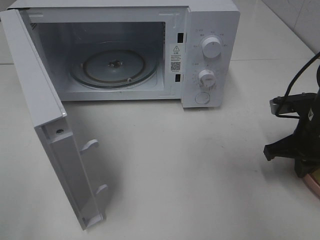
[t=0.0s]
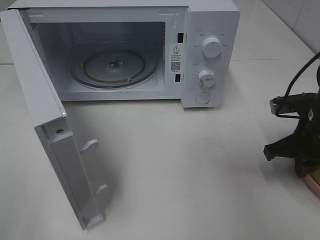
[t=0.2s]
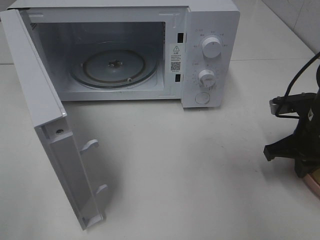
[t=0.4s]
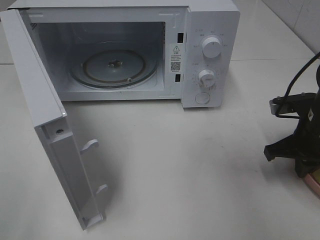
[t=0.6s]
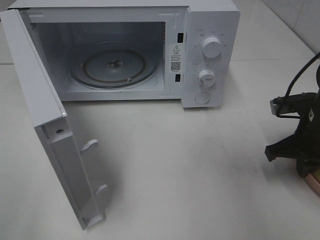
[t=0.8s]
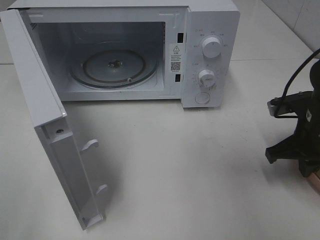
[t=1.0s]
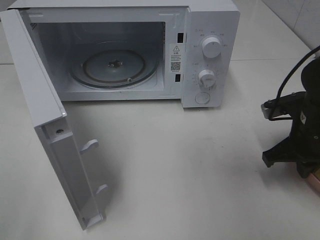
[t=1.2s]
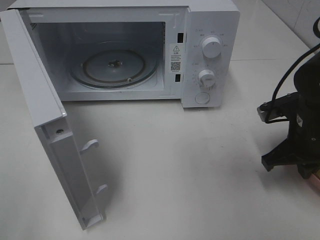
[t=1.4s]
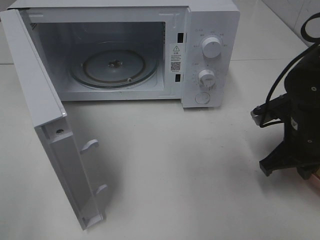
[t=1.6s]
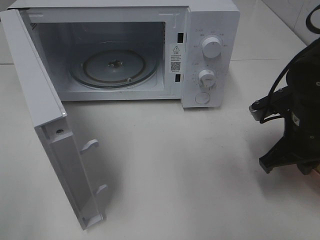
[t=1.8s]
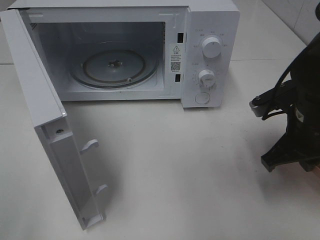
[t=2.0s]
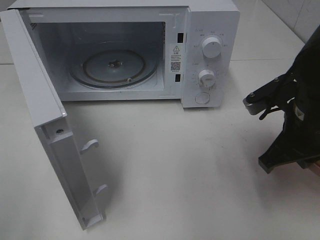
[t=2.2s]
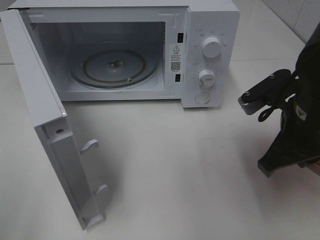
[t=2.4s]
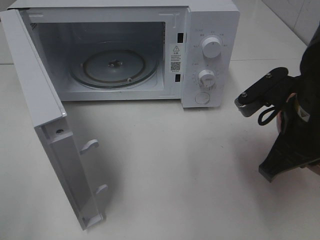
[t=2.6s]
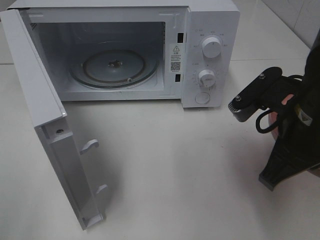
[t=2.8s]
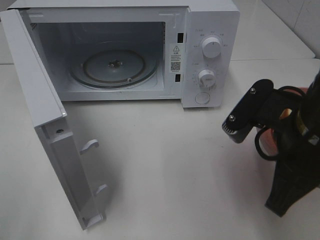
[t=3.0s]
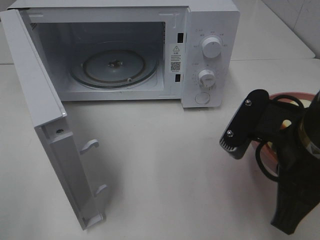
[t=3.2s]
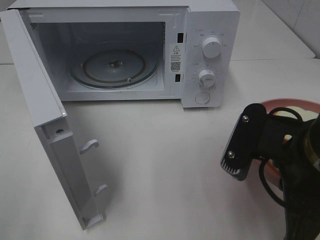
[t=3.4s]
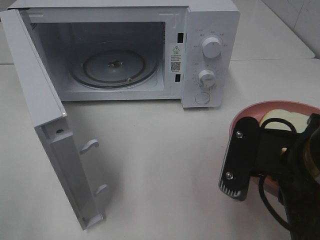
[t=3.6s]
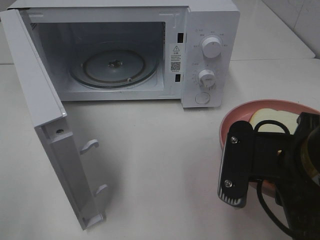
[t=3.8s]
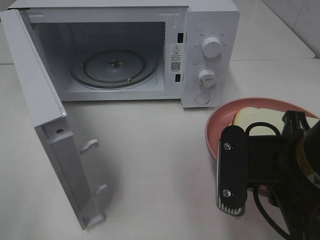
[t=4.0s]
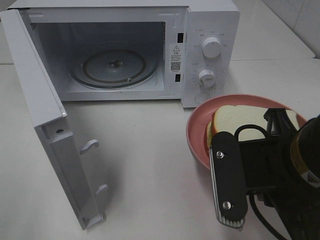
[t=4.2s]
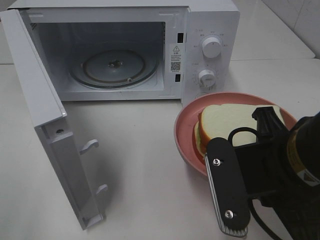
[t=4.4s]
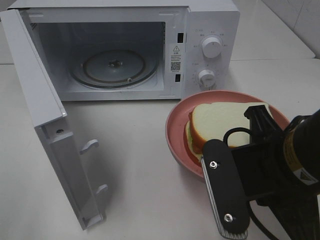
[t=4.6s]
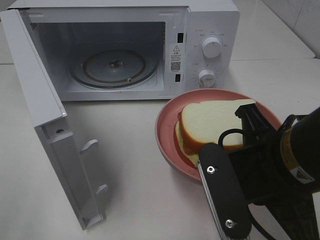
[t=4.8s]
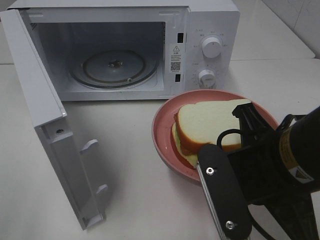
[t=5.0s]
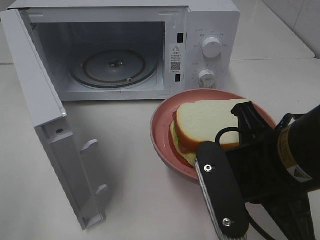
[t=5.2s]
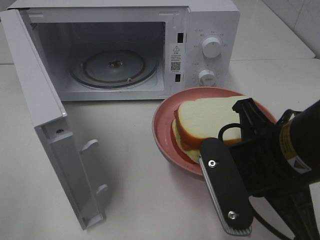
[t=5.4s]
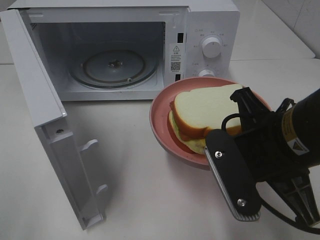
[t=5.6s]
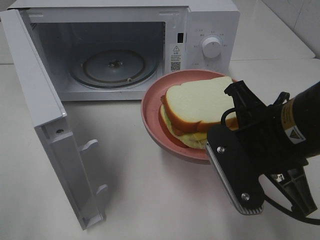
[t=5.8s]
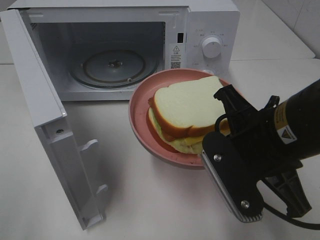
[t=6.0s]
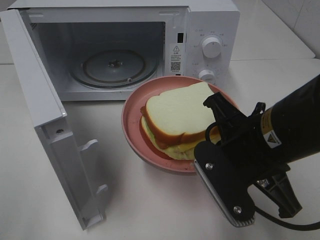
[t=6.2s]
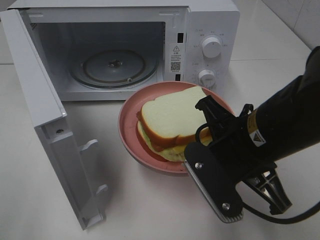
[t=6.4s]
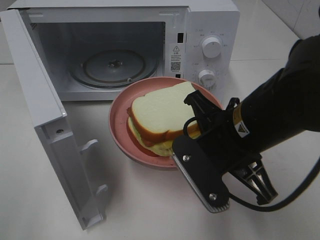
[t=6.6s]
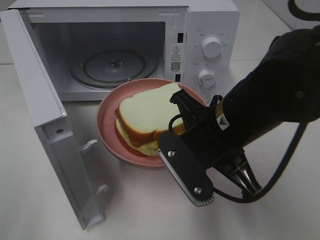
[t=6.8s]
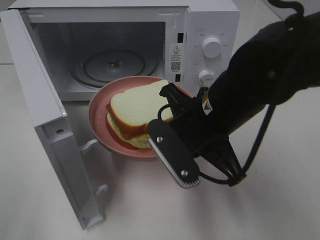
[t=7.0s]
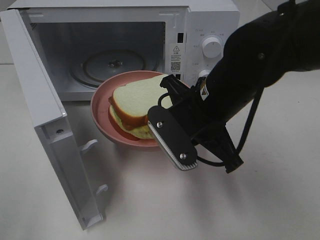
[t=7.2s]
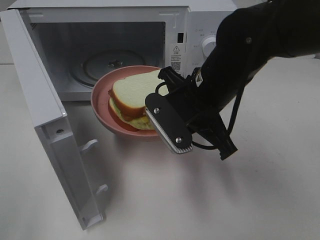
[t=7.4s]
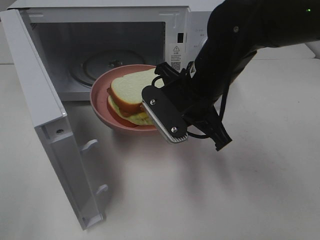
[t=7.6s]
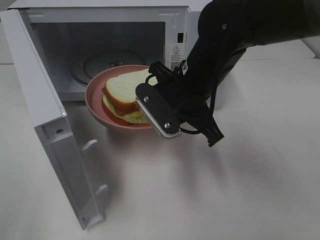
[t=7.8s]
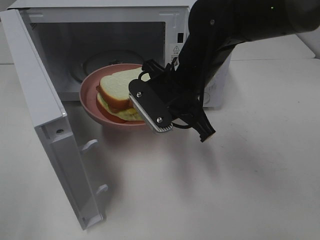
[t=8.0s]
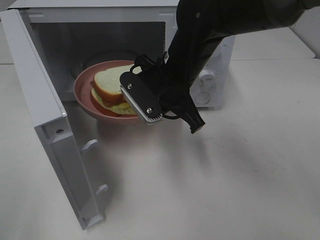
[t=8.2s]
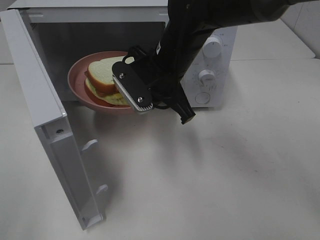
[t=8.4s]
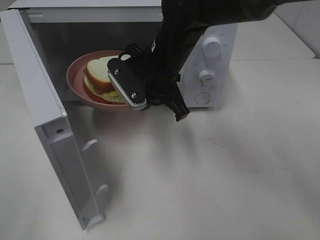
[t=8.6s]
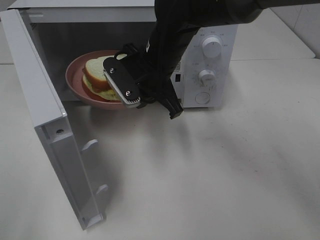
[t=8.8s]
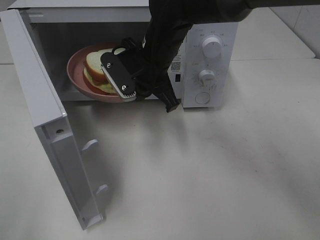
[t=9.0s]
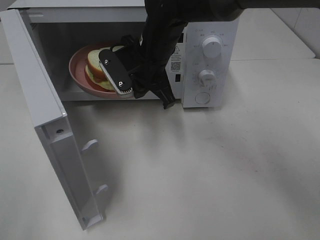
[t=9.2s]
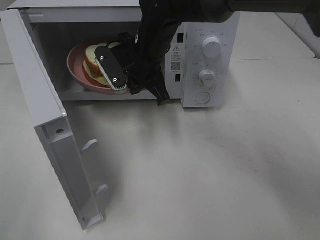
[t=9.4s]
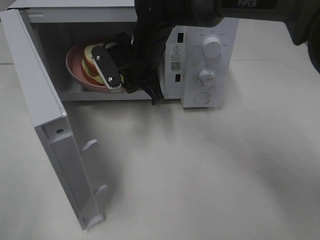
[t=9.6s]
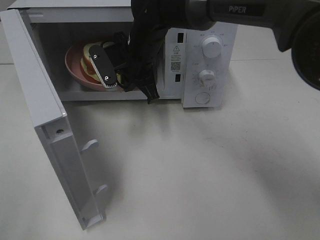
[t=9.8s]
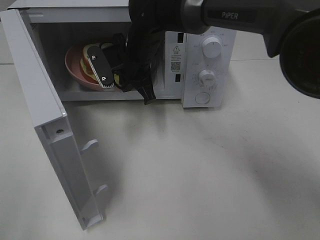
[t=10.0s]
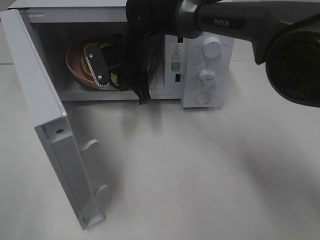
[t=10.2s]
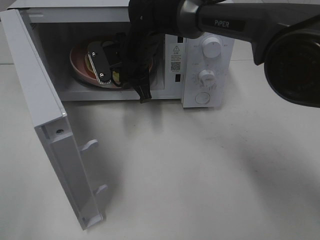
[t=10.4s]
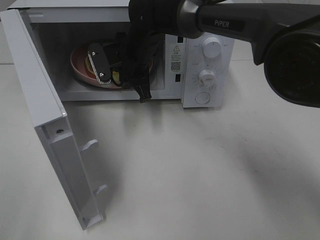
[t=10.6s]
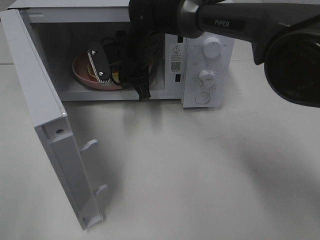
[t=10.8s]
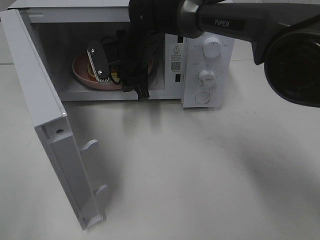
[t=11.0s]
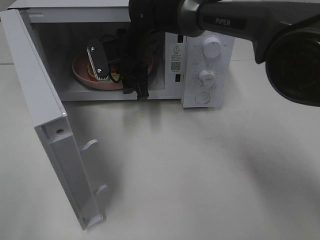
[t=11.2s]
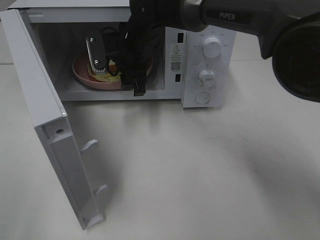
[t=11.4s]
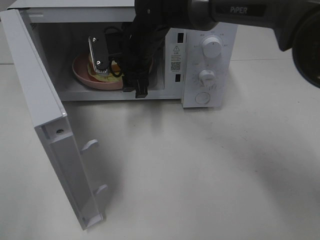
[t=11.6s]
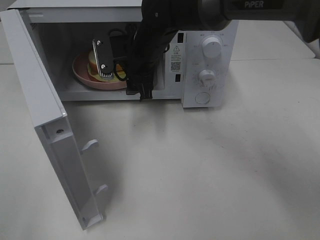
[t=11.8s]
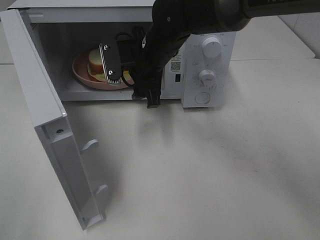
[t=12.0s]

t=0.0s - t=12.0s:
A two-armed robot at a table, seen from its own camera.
Task of the whole recording: Heat Sandwich.
Step, t=0.6s - t=11.0s: Right hand: place the plate in the microwave.
t=0.0s - t=1.6s: The grippers move only a little.
t=1.6s - t=3.0s: The right gripper is displaced backward, upward and to the left by roughly 15 cm.
t=6.0s - t=7.6s: The right gripper shifts about 15 cm forward and to the left.
t=7.6s - t=9.0s: The right gripper is displaced forward and to the left by roughly 10 cm.
t=9.0s - t=10.4s: The right gripper is displaced forward by some 5 cm.
t=10.4s - t=12.0s: The right gripper moves some 5 cm, and opens up.

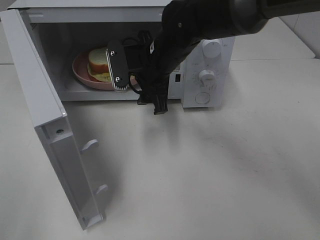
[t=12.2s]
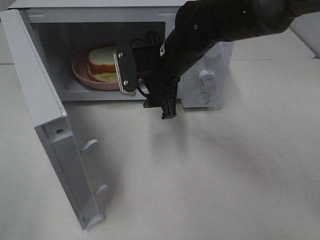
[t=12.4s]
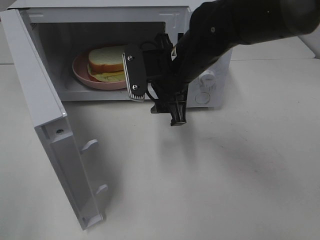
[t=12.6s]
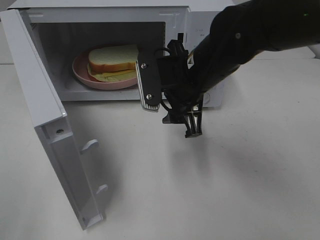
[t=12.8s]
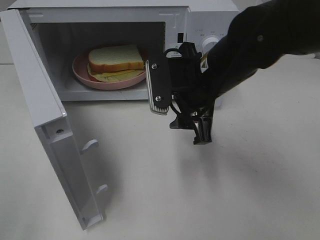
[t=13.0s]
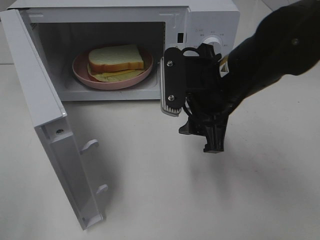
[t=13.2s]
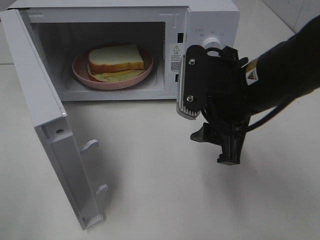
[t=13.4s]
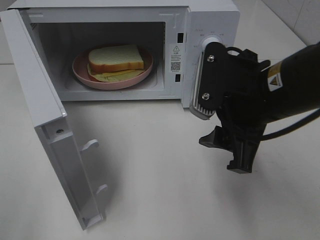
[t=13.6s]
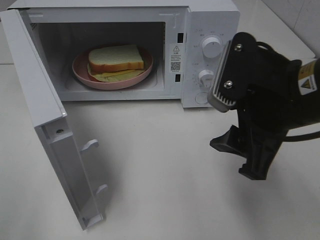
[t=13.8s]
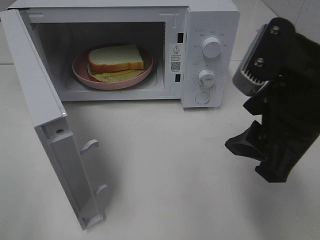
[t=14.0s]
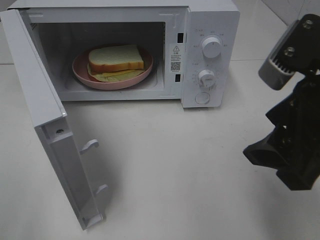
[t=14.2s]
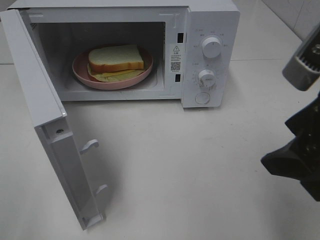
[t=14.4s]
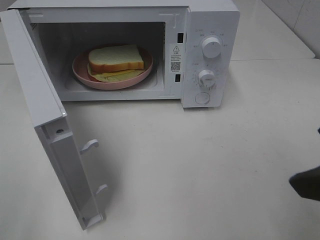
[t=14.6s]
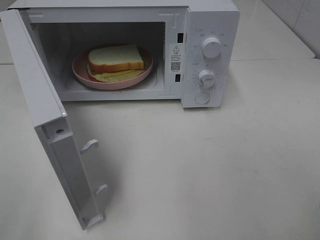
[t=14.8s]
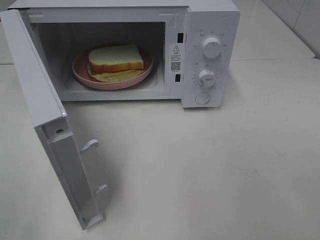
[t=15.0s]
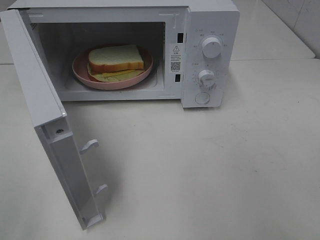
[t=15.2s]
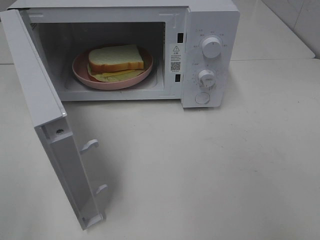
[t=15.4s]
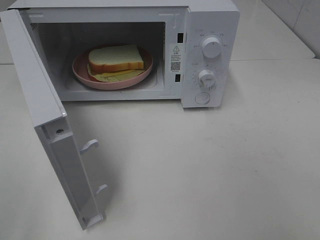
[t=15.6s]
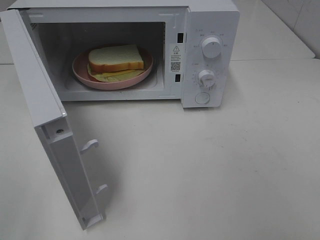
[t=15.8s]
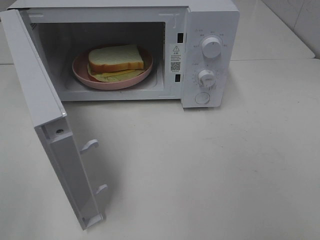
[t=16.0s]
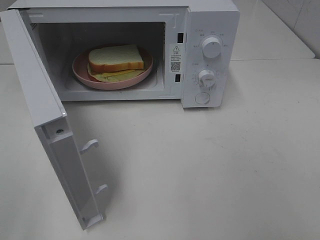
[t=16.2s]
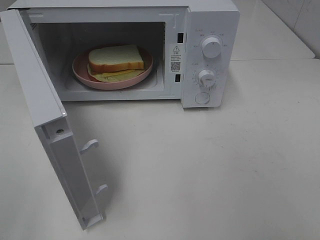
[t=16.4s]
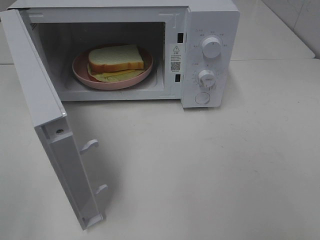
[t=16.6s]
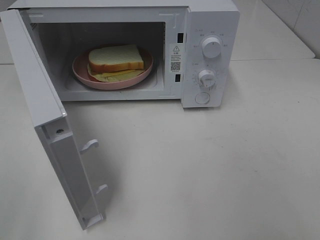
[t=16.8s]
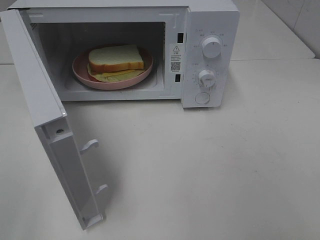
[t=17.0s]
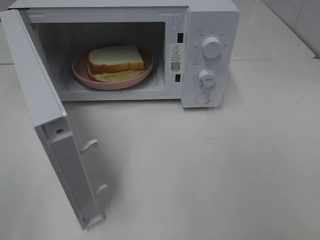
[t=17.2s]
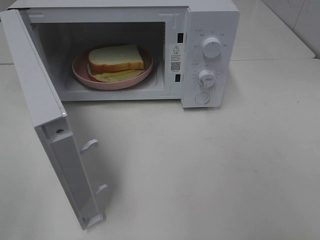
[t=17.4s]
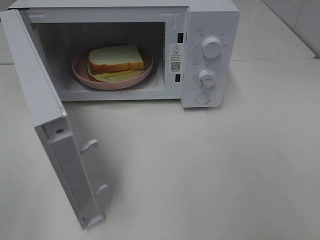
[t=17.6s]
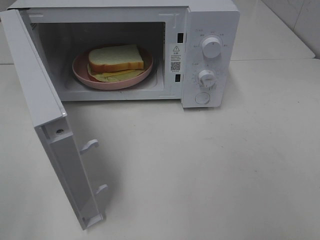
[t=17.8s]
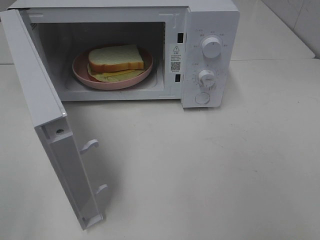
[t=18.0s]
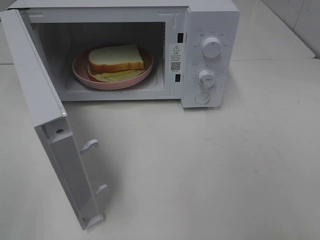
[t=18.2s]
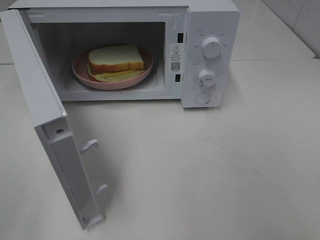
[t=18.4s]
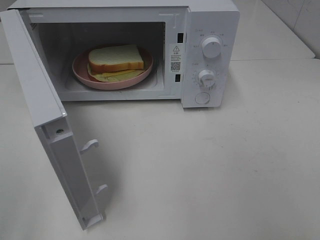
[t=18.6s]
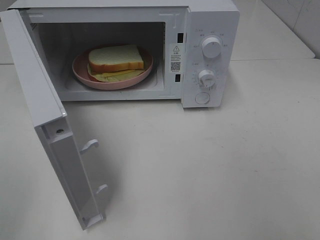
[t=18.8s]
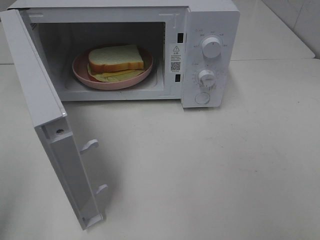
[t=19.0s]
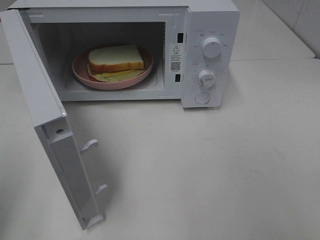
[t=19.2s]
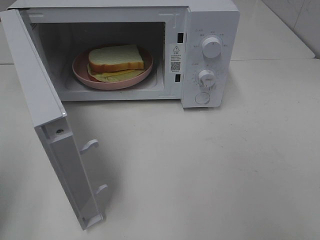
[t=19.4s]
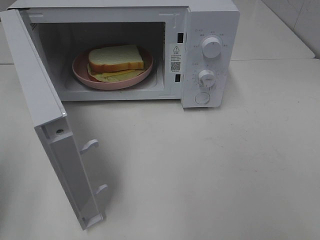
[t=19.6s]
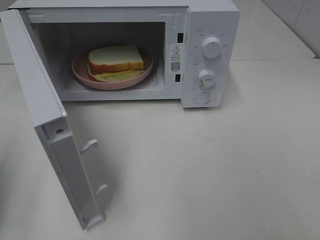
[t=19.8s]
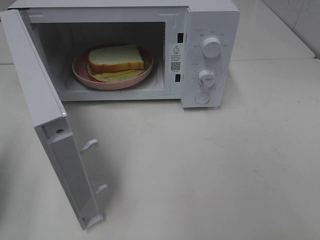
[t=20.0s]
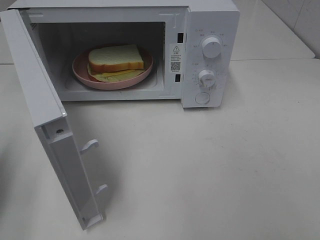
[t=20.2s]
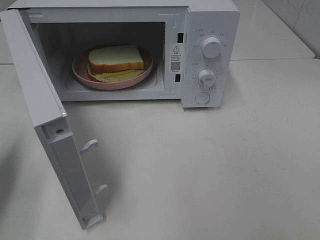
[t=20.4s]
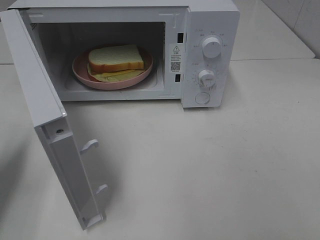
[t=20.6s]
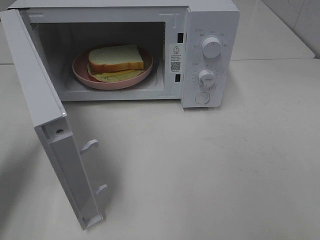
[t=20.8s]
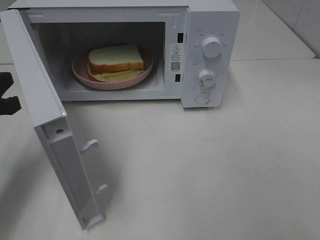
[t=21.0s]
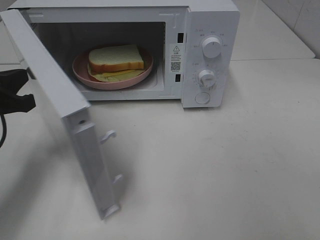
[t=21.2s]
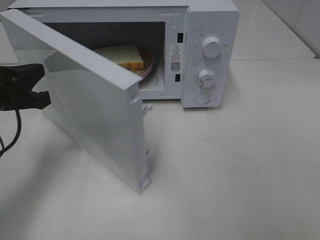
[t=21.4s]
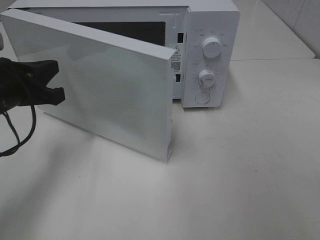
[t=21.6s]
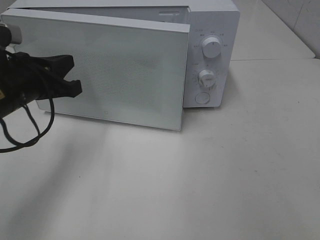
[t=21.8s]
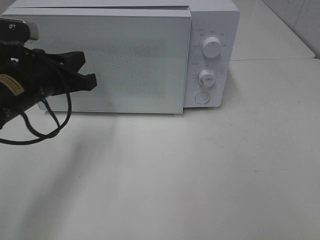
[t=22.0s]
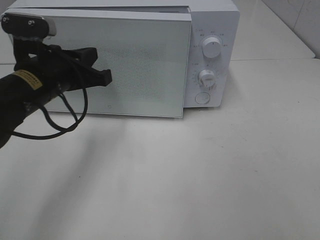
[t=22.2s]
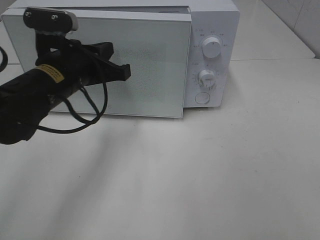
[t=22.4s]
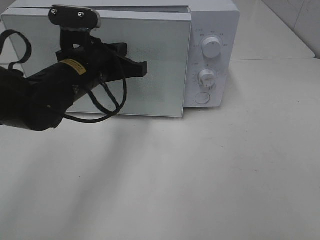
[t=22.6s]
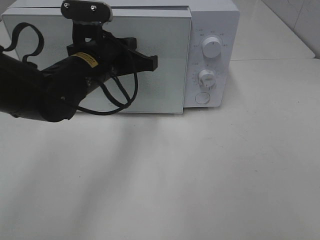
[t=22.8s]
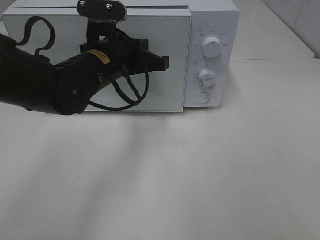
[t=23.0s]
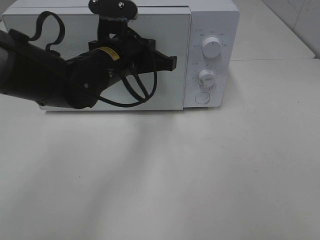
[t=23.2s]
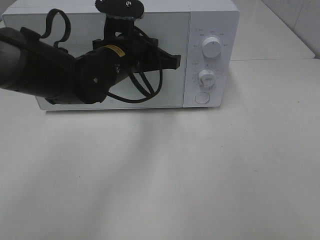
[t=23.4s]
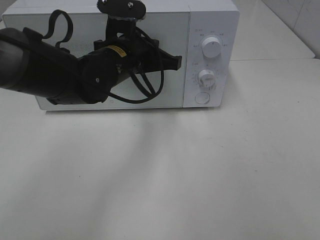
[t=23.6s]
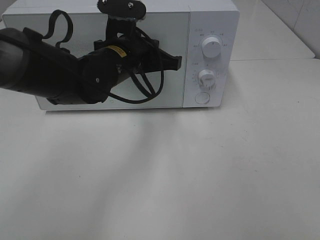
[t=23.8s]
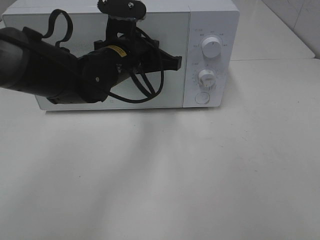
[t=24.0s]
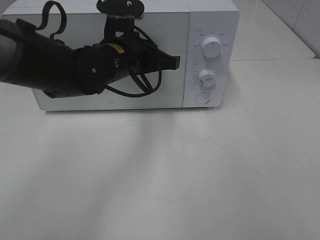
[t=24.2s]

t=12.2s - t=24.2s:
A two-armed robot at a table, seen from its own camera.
Task of the whole recording: Heat Sandwich.
t=12.2s - t=13.8s: The right gripper travels backward and to the right by about 25 cm.
t=13.8s - t=15.2s: The right gripper goes approximately 20 cm backward, to the right and upward.
t=16.6s - t=18.2s: The two grippers keep their place.
t=19.8s - t=21.2s: The left gripper goes some 15 cm forward, to the right and downward.
t=21.2s - t=22.6s: The left gripper shifts roughly 15 cm to the right and forward.
t=22.6s - t=24.2s: The left gripper moves roughly 5 cm.
